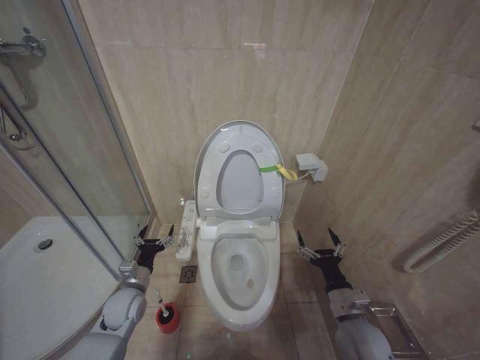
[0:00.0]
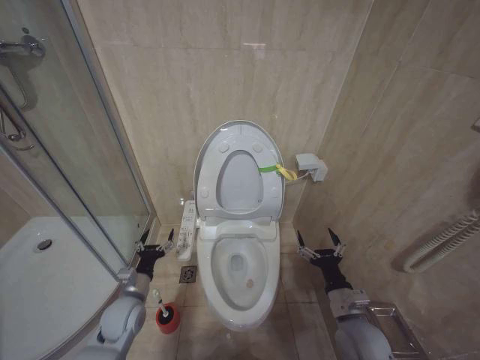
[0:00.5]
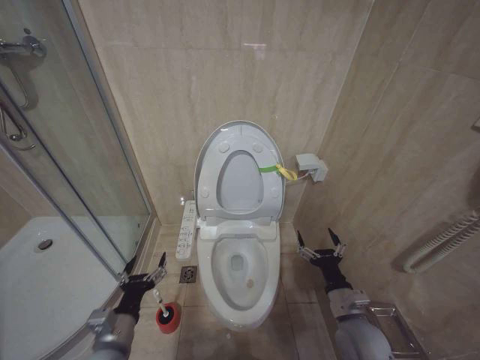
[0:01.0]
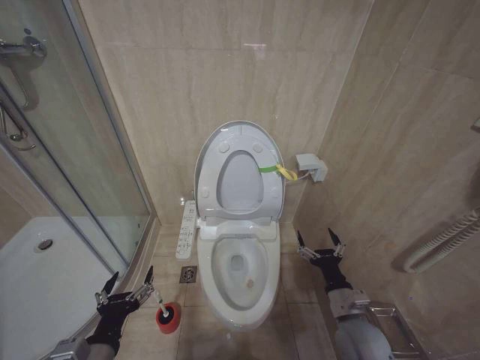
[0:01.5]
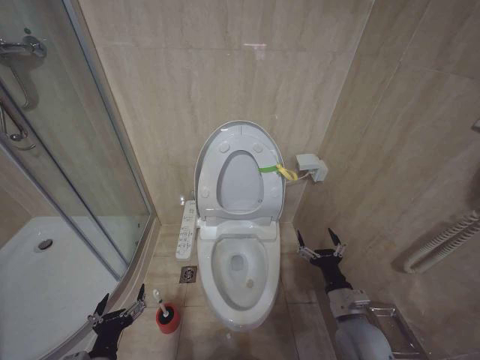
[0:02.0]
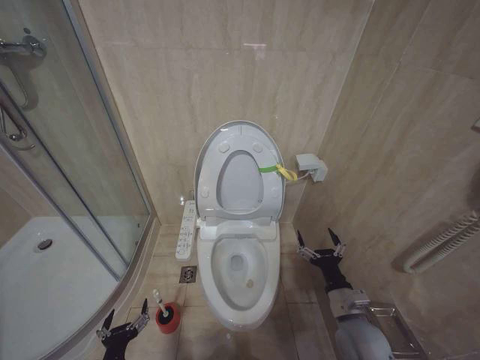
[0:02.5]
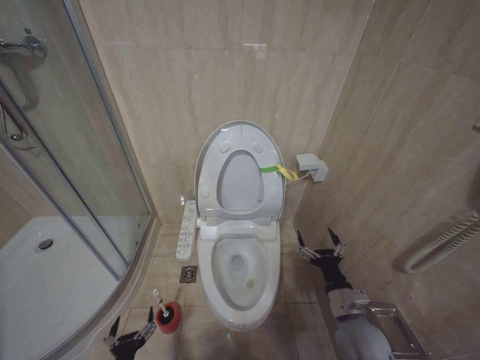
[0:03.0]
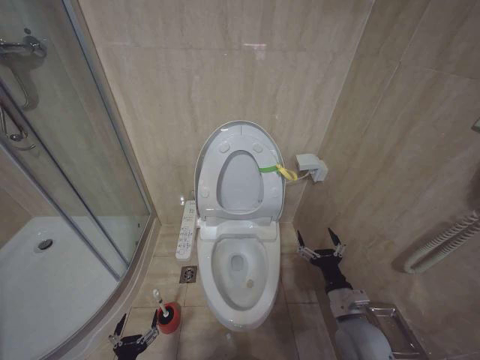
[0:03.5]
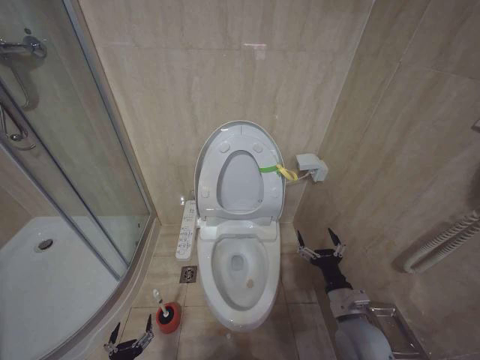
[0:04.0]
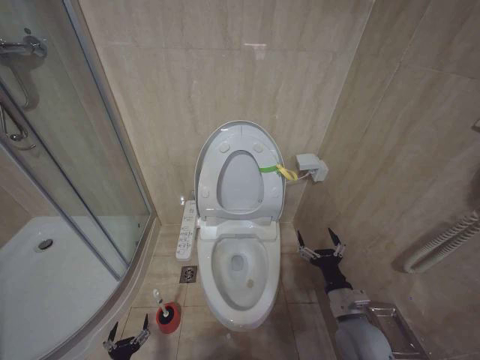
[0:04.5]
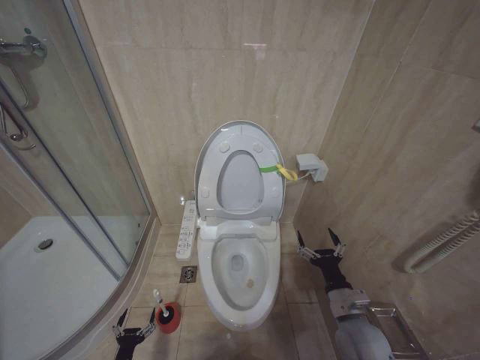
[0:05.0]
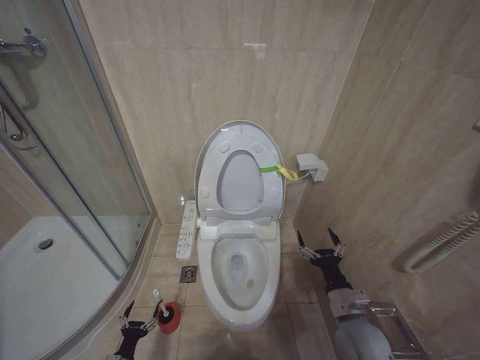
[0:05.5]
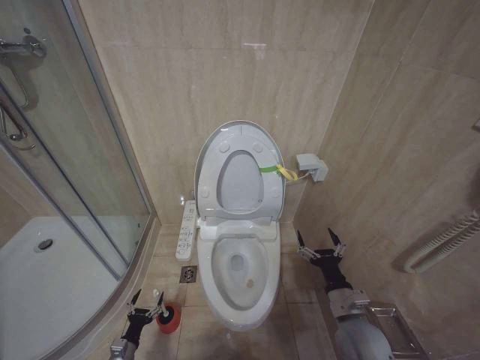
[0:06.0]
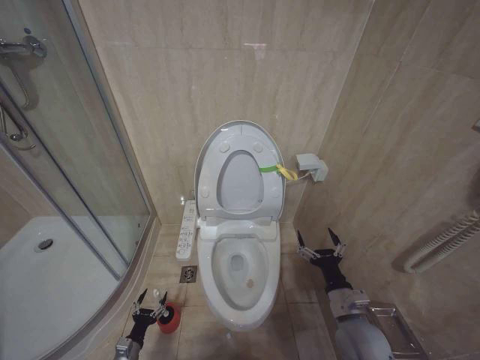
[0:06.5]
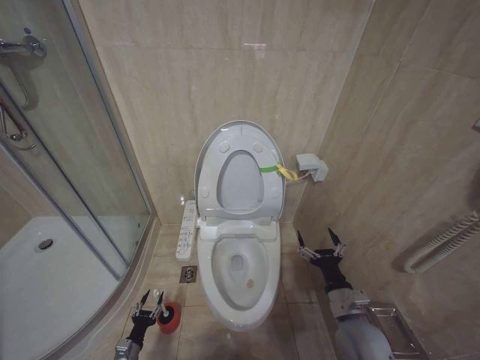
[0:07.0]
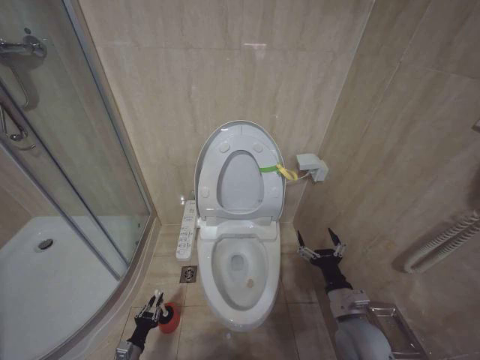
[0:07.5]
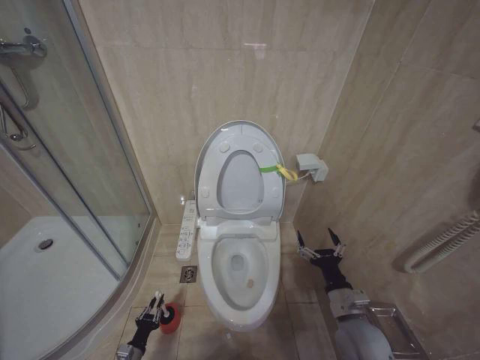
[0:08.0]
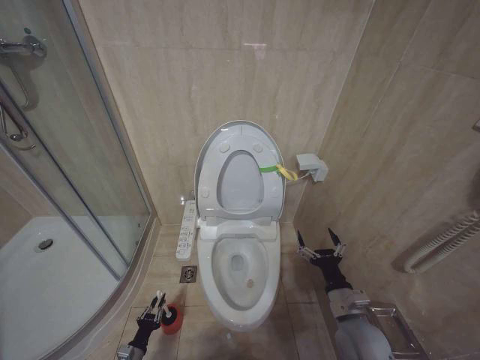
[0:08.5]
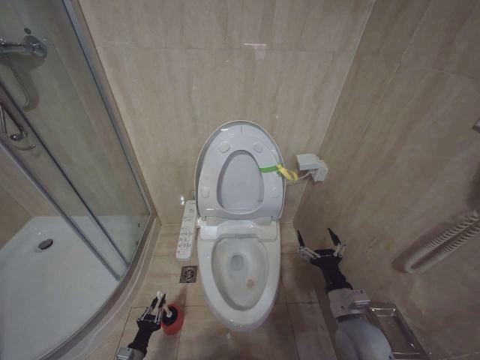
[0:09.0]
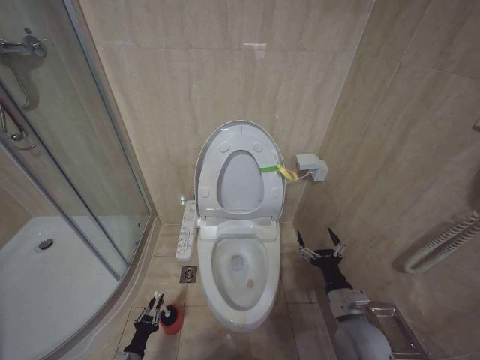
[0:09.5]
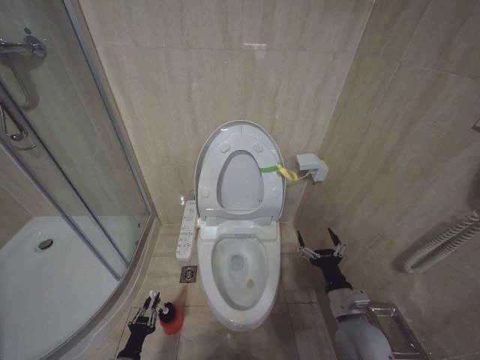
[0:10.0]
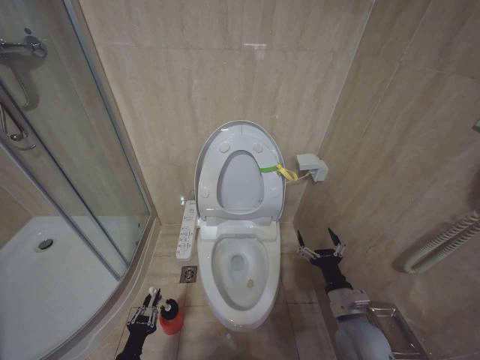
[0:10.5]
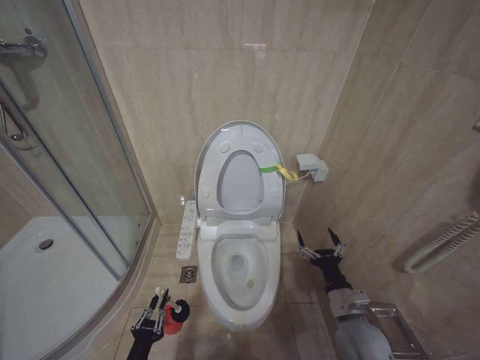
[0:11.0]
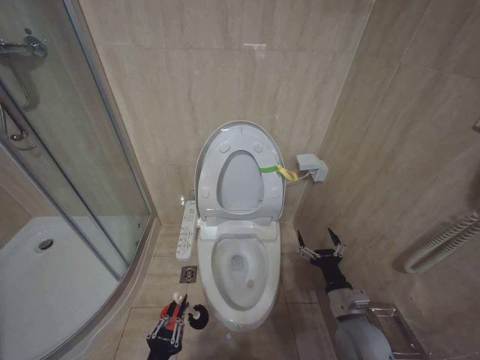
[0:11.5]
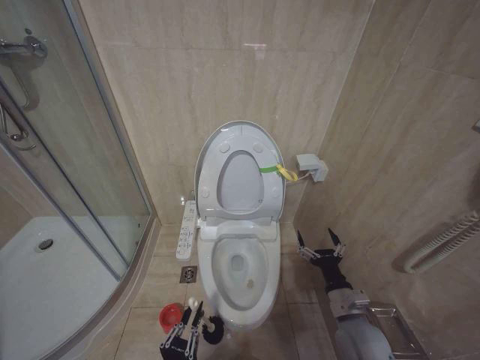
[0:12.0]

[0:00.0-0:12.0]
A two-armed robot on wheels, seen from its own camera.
Task of the whole recording: Open the toilet lid, clean the toilet bowl with a toilet brush, close the toilet lid, and flush.
0:00.0 to 0:02.0: The left gripper heads backward, covering approximately 20 cm.
0:02.0 to 0:04.0: The left gripper moves downward, some 20 cm.
0:04.0 to 0:06.0: The left gripper moves forward, downward and to the left, approximately 15 cm.
0:06.0 to 0:08.0: The left gripper closes up.
0:08.0 to 0:10.0: The left gripper shifts by some 5 cm.
0:10.0 to 0:12.0: The left gripper shifts about 25 cm upward, to the right and backward.

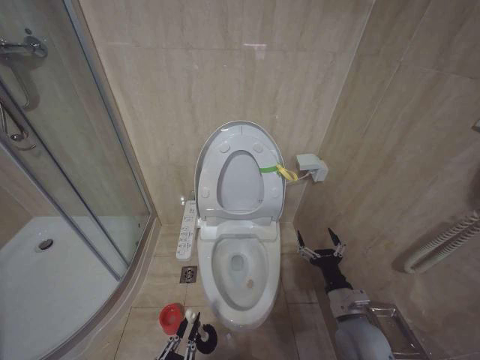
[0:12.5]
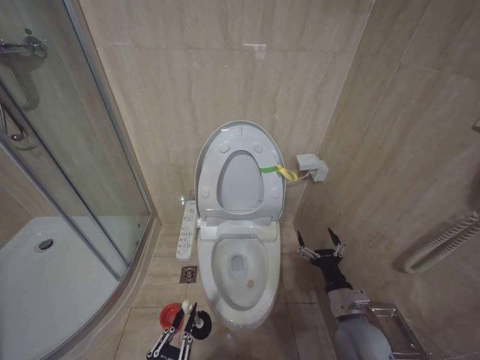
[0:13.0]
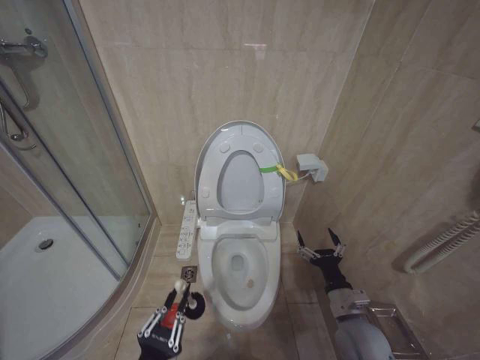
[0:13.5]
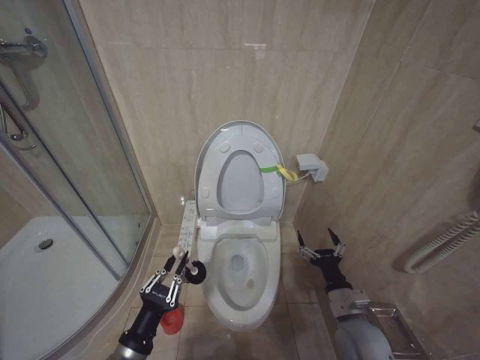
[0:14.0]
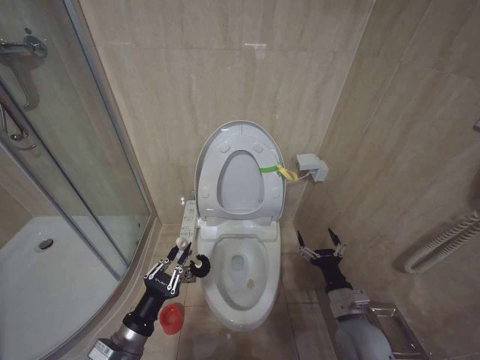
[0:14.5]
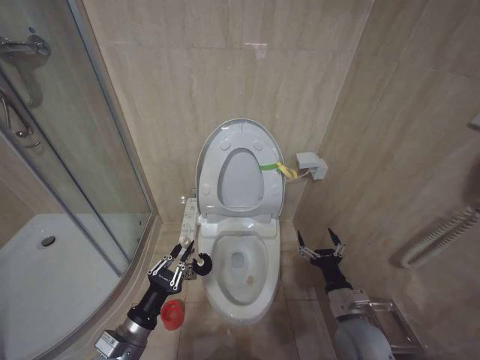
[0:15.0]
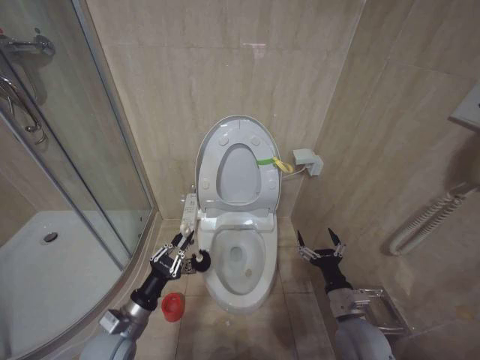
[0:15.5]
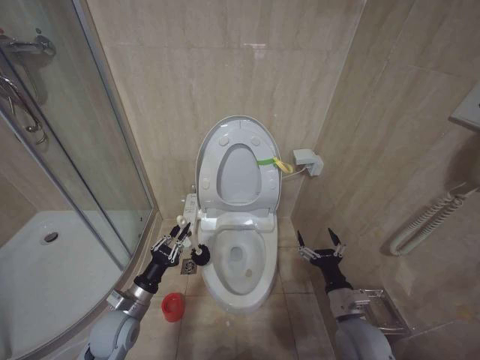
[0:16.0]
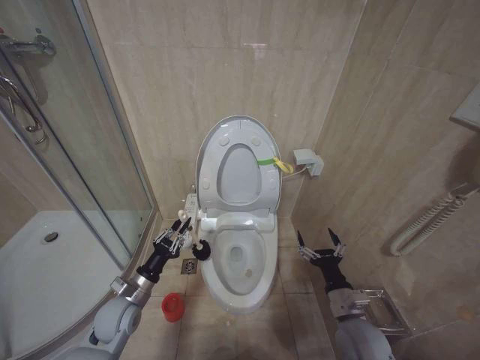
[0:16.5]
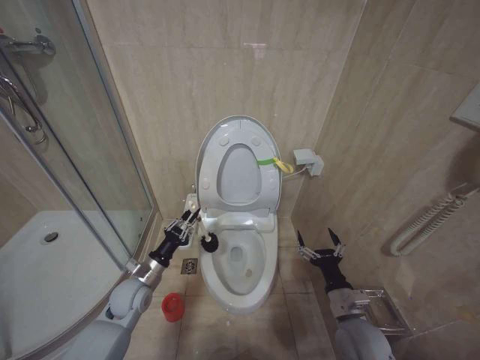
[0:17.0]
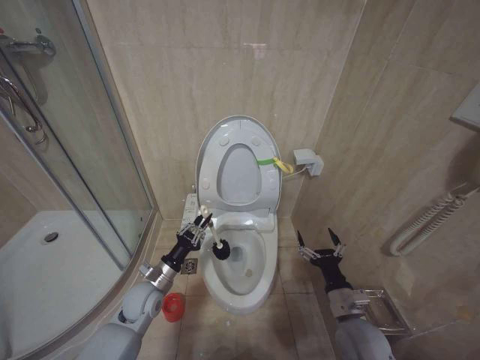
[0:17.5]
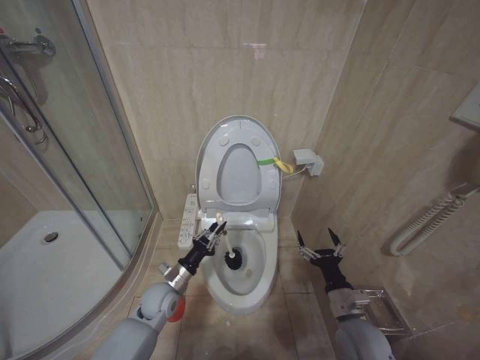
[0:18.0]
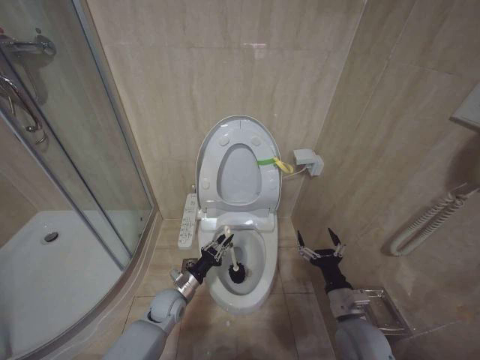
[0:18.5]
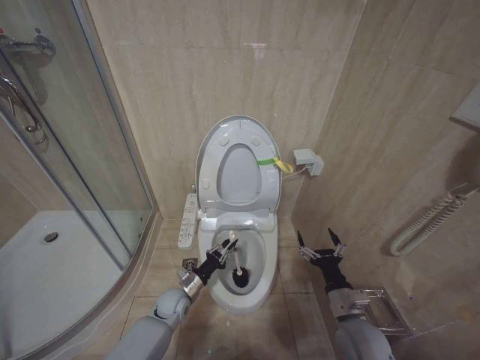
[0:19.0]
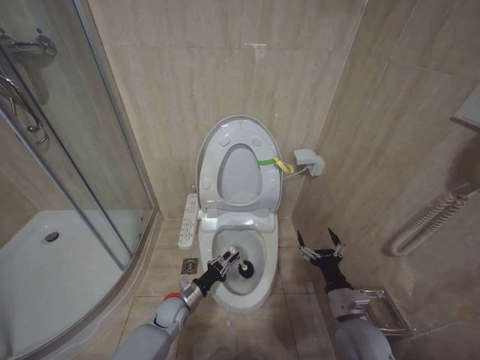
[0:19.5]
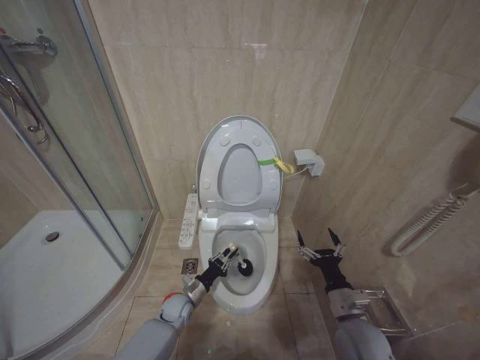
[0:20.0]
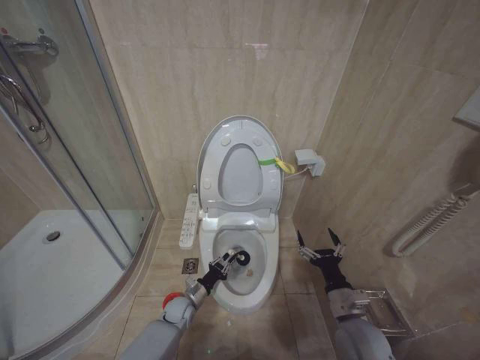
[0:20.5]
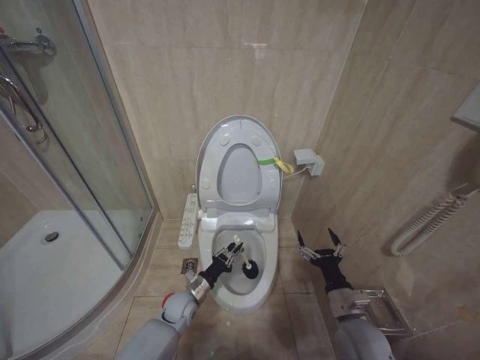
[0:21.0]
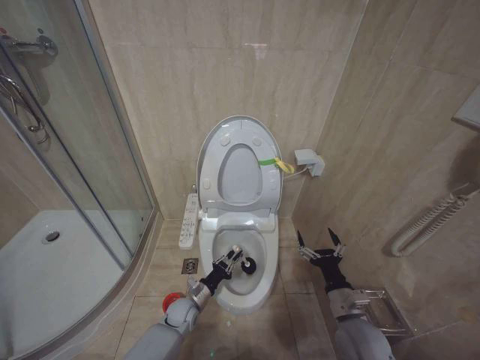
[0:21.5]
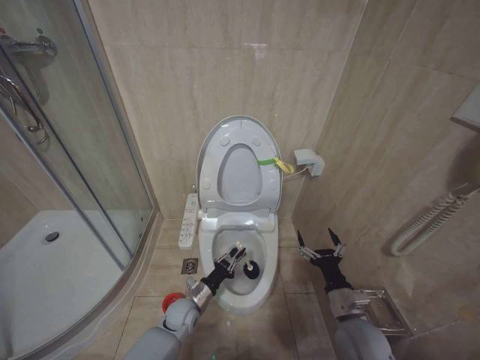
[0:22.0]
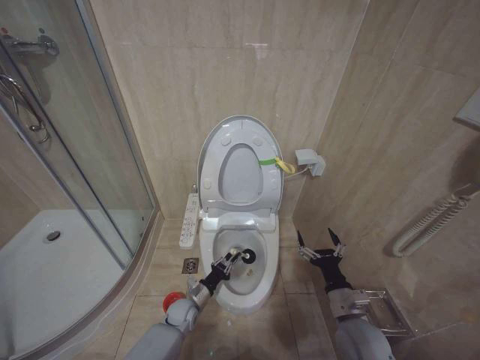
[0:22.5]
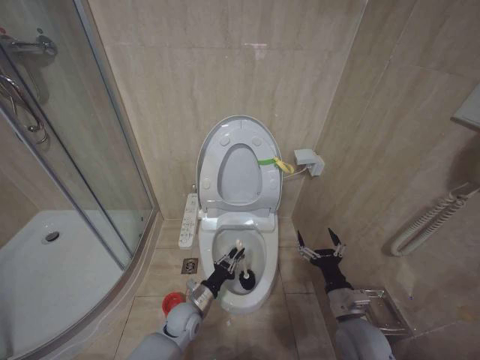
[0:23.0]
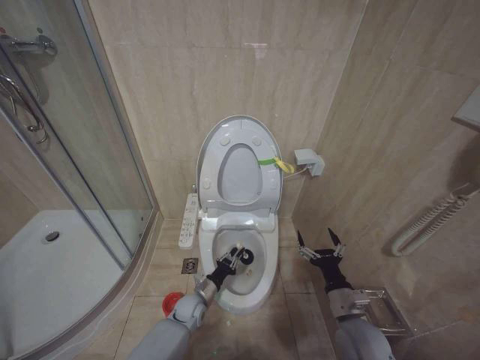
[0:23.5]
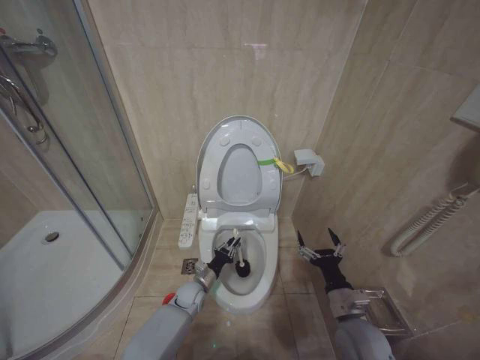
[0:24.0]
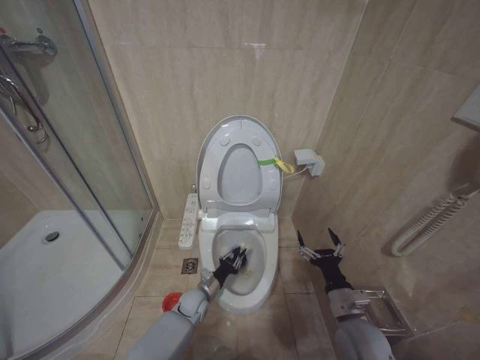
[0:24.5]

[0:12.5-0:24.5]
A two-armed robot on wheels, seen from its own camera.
Task of the whole recording: Open the toilet lid, clean the toilet bowl with a toilet brush, close the toilet lid, and flush.
0:12.5 to 0:14.5: The left gripper shifts roughly 15 cm forward, upward and to the left.
0:14.5 to 0:16.5: The left gripper heads forward, covering some 15 cm.
0:16.5 to 0:18.5: The left gripper goes some 15 cm to the right, downward and forward.
0:18.5 to 0:20.5: The left gripper heads downward, covering about 10 cm.
0:22.5 to 0:24.5: The left gripper moves up and down over approximately 10 cm, changing direction 3 times.

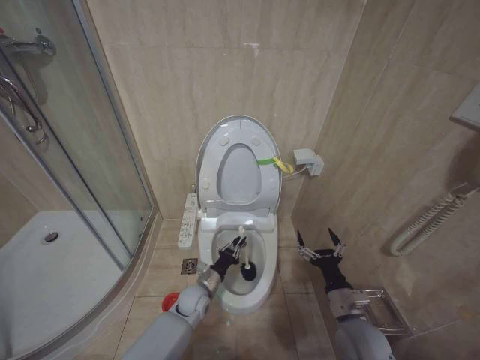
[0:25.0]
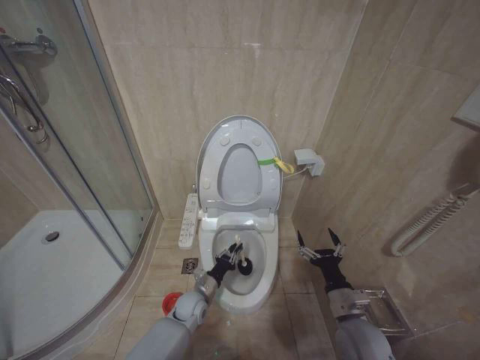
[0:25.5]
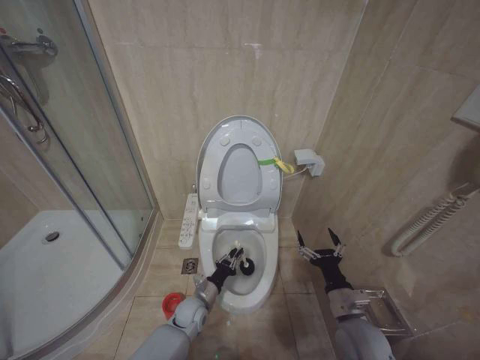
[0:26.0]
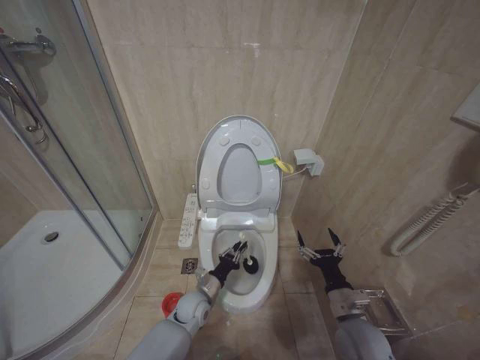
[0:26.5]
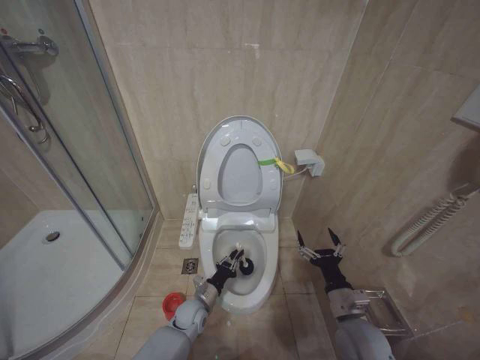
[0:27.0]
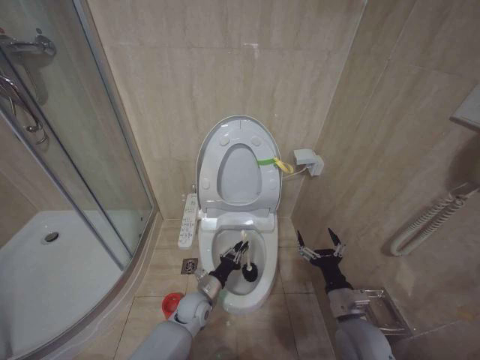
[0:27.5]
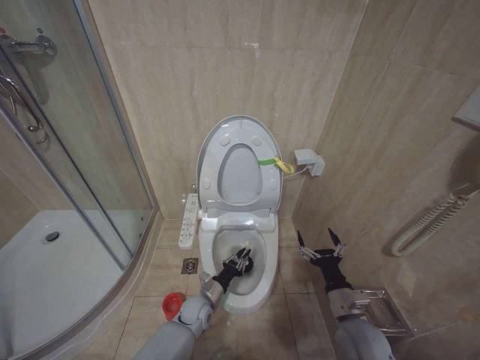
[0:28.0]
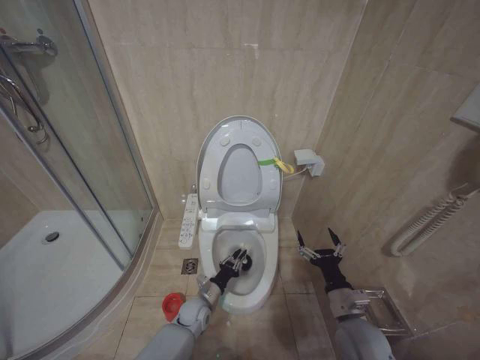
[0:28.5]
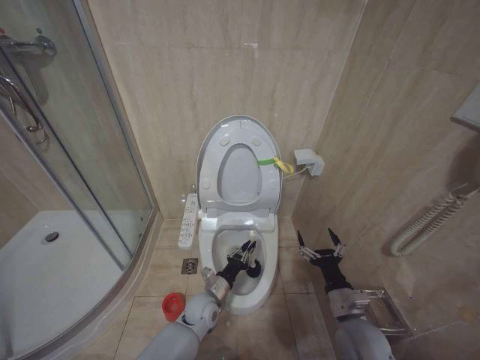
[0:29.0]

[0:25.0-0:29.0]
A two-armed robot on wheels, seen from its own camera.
Task of the whole recording: Open the toilet lid, clean the toilet bowl with a toilet brush, close the toilet lid, and flush.
0:25.0 to 0:27.0: The left gripper travels downward by approximately 5 cm.
0:27.0 to 0:29.0: The left gripper swings up and down, roughly 5 cm each way, with 2 reversals.
